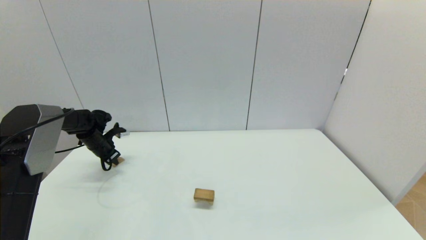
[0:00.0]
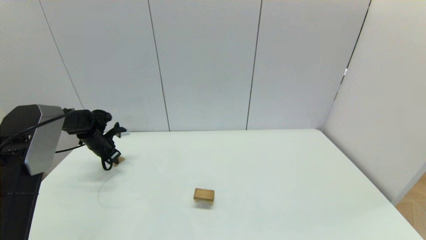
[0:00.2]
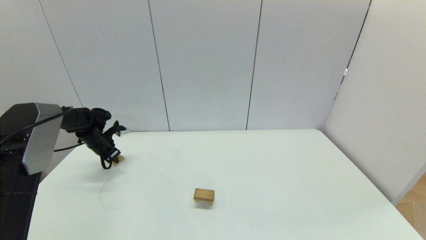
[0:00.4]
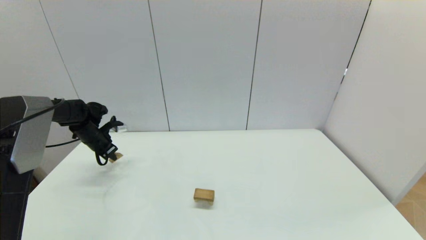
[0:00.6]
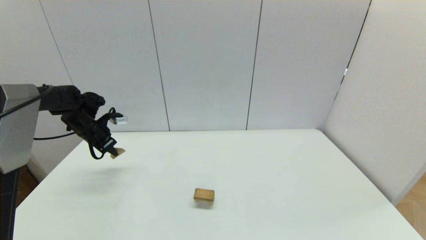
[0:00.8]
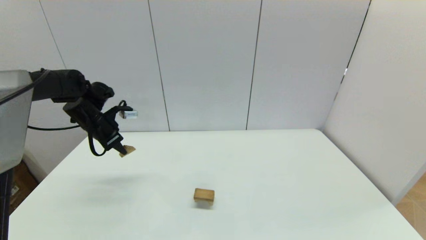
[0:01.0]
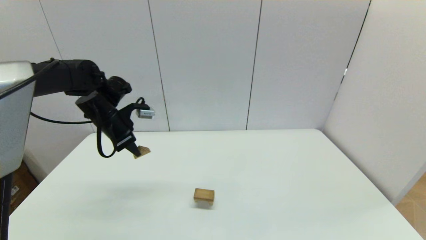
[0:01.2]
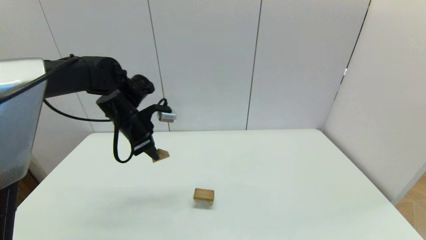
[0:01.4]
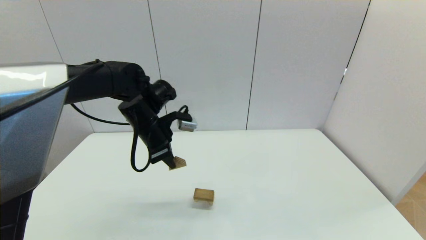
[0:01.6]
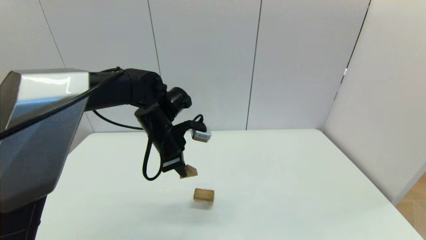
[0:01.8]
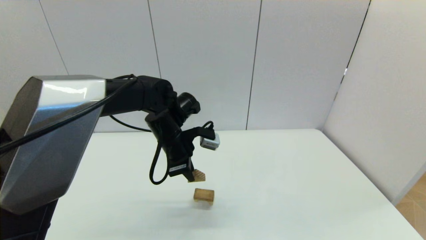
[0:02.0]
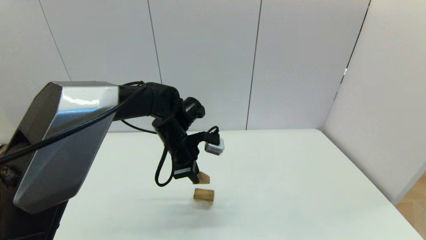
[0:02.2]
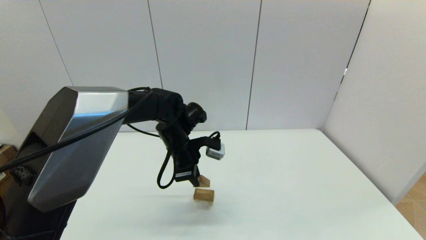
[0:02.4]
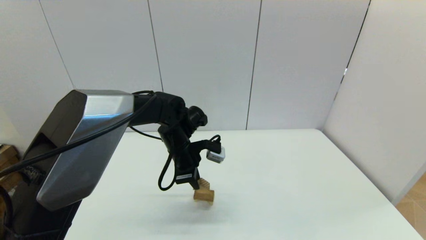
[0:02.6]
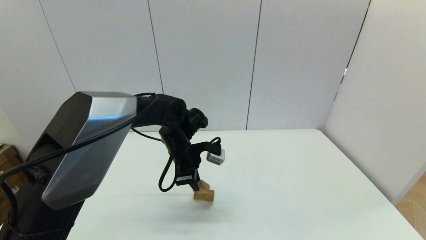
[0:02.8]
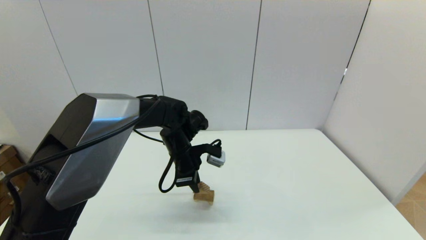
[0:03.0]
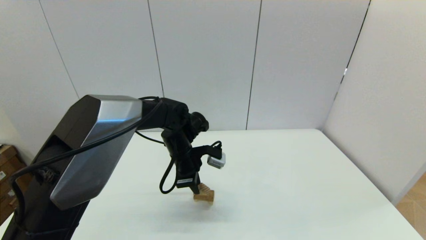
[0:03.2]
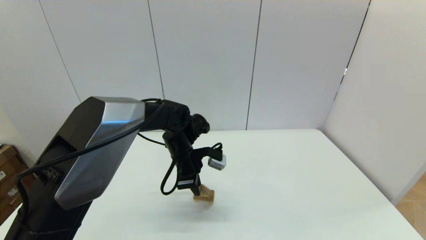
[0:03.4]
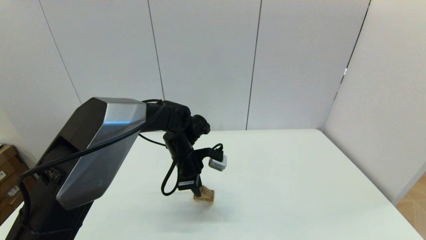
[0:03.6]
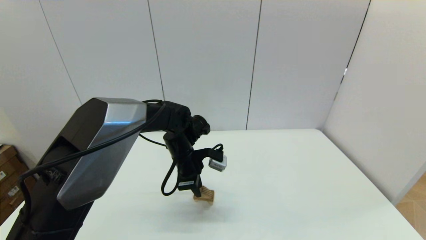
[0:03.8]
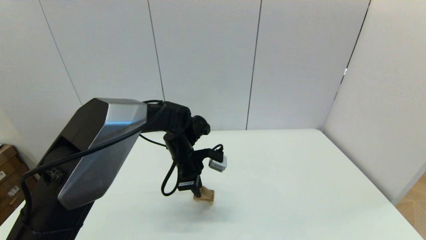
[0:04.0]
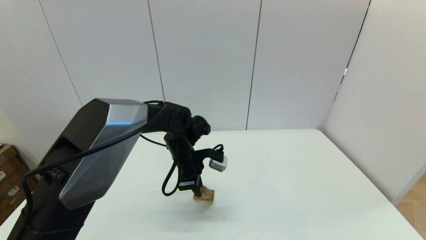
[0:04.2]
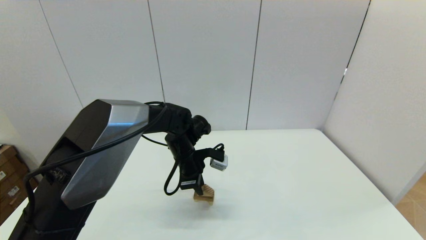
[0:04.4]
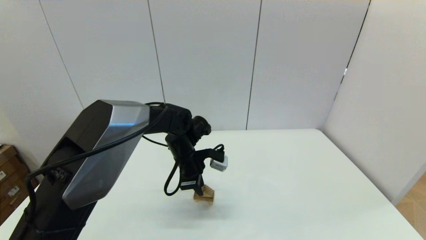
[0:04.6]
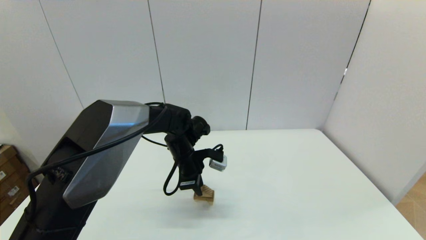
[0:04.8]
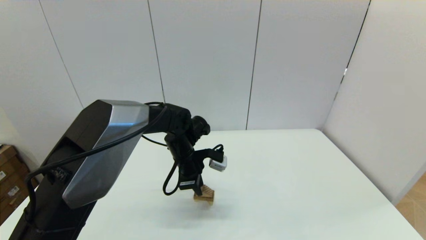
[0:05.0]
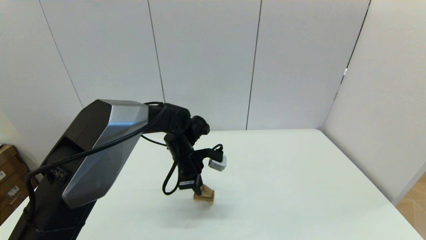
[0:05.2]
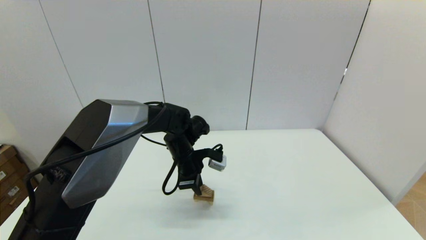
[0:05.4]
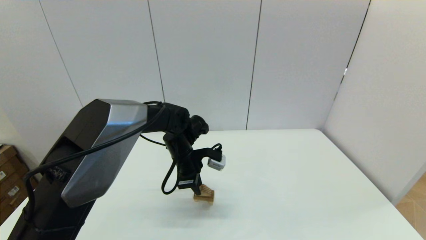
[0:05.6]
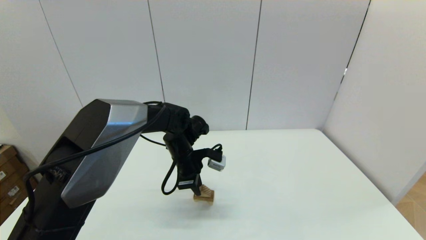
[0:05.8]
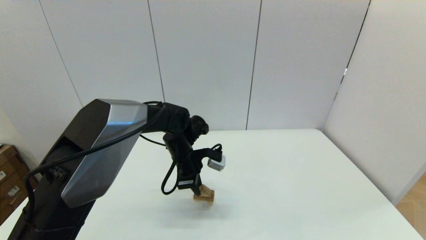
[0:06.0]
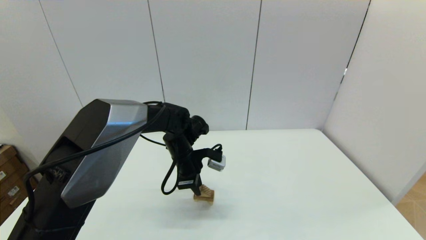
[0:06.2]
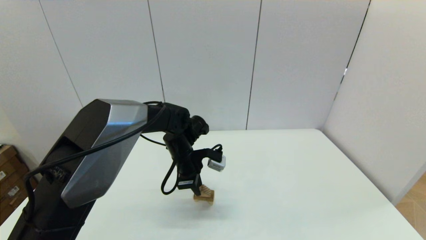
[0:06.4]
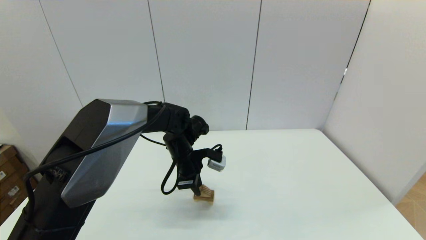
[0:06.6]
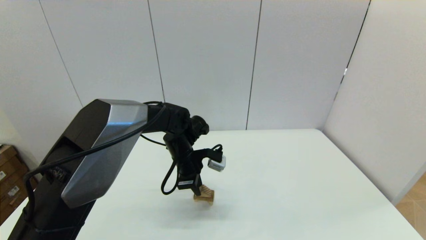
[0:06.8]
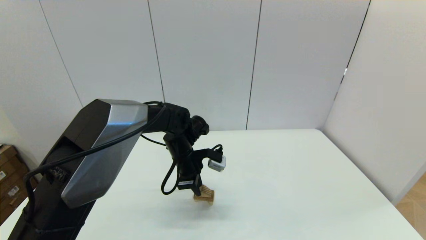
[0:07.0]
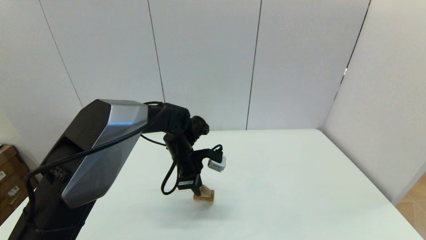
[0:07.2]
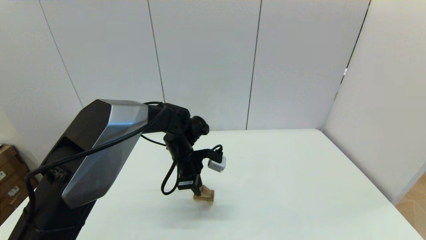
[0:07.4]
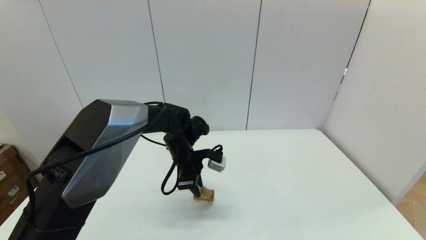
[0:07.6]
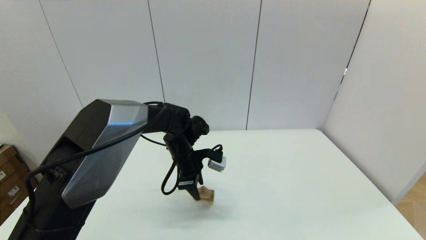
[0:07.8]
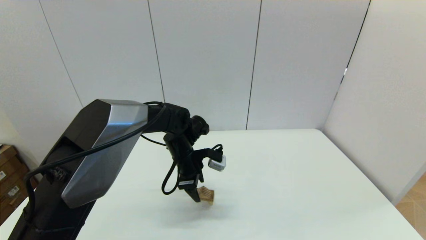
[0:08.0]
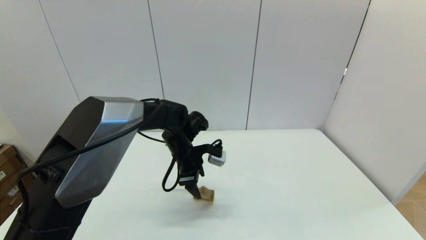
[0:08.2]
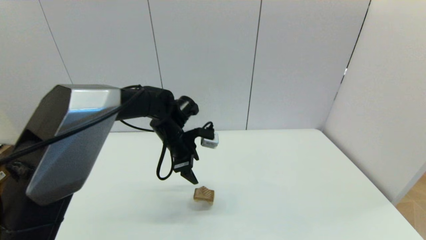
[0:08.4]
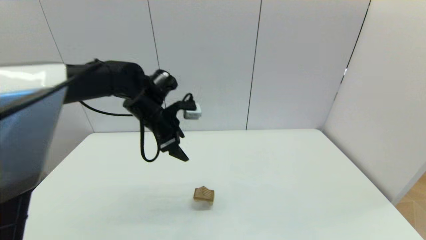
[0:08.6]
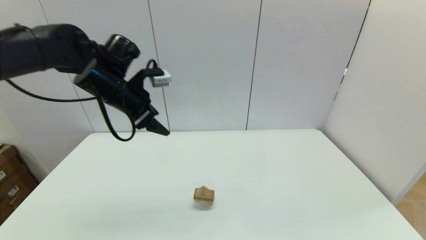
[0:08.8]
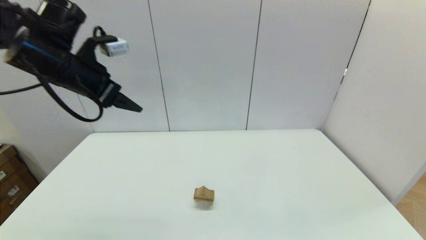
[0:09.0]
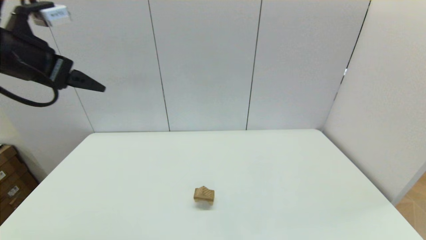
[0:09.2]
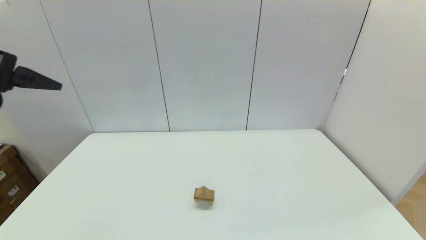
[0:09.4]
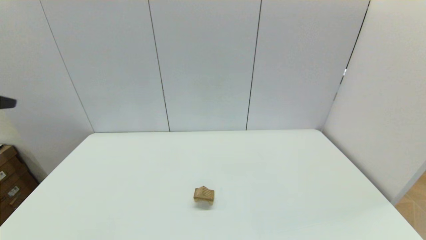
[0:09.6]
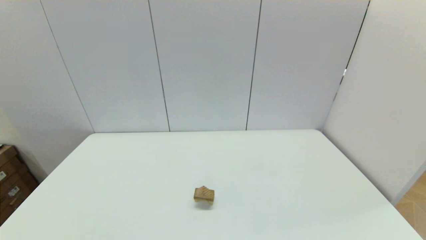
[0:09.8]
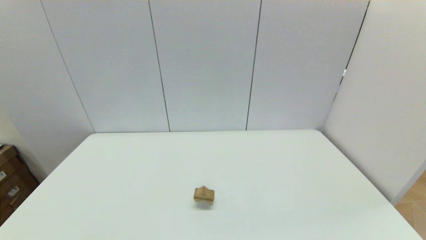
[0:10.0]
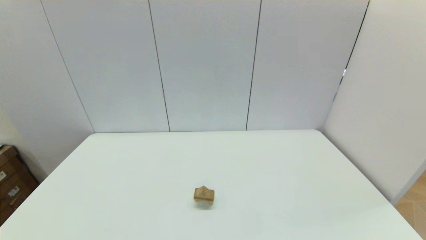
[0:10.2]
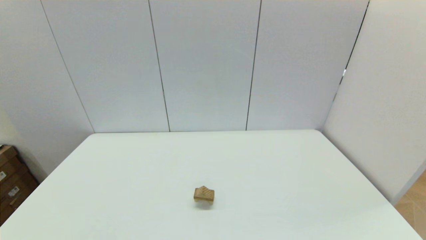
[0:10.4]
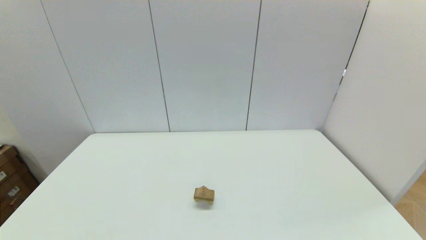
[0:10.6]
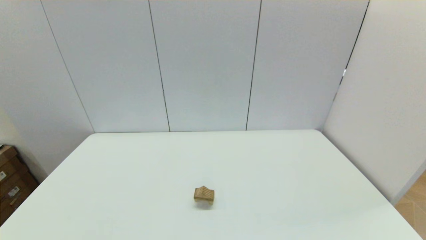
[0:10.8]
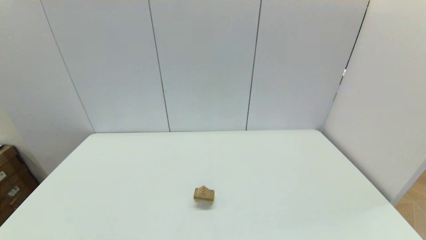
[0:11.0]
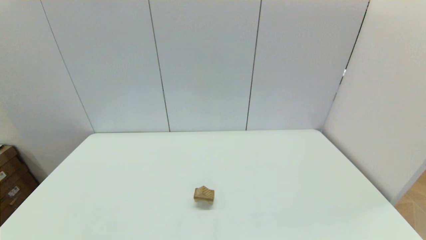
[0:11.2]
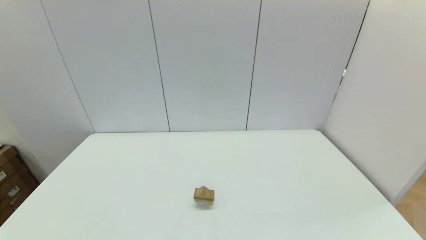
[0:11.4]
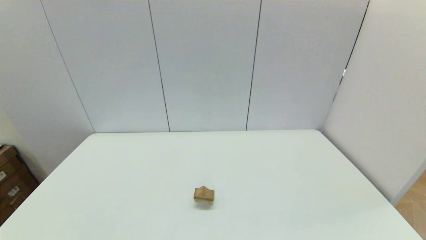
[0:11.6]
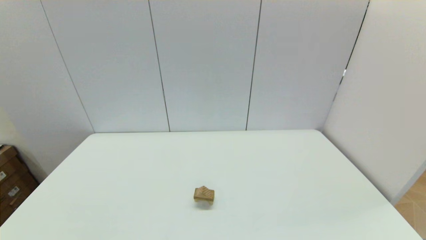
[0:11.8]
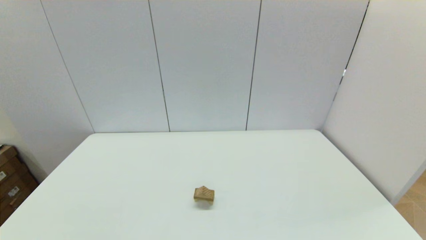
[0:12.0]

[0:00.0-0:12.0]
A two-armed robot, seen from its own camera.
Task of the whole recording: place the arched building blocks in the center of the table, set up the rectangular building blocks, and then set up the triangular building blocks.
0:00.0 to 0:01.6: The left gripper moves to the right, upward and backward, approximately 30 cm.
0:01.6 to 0:03.0: The left gripper travels downward and to the right by about 10 cm.
0:03.0 to 0:04.4: The grippers make only small movements.
0:04.4 to 0:07.6: The two grippers keep their place.
0:07.6 to 0:09.0: The left gripper shifts about 30 cm upward and to the left, and opens its fingers.
0:09.0 to 0:10.4: The left gripper moves backward, roughly 40 cm.

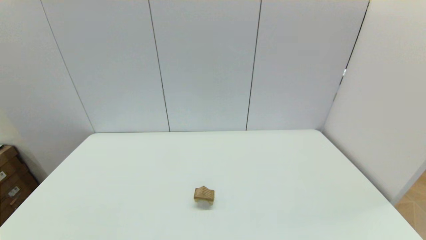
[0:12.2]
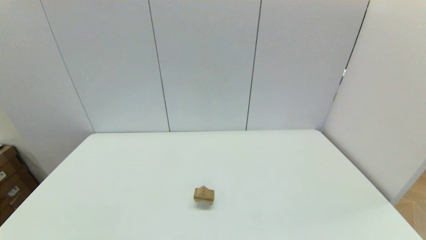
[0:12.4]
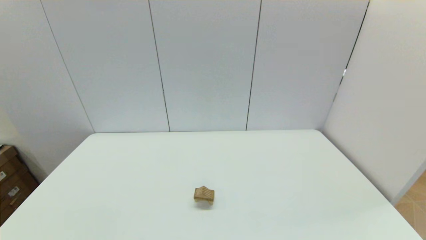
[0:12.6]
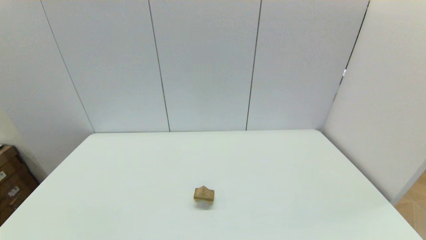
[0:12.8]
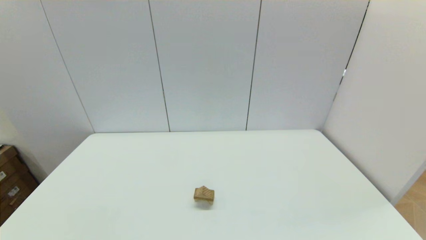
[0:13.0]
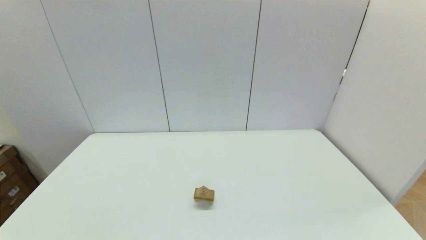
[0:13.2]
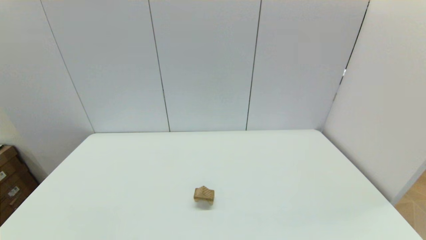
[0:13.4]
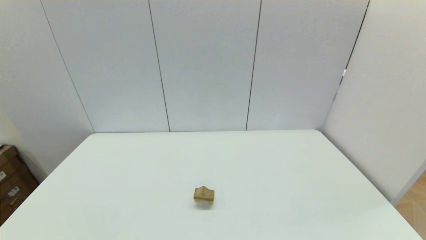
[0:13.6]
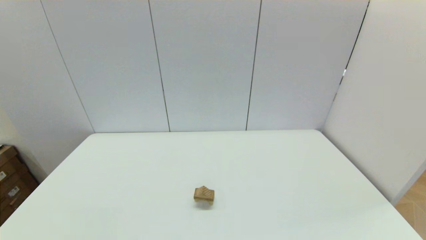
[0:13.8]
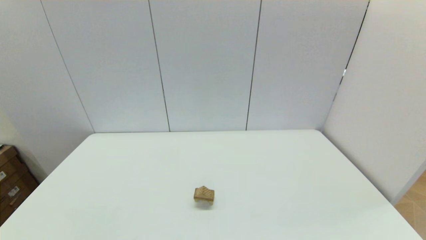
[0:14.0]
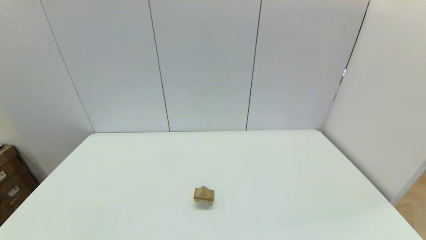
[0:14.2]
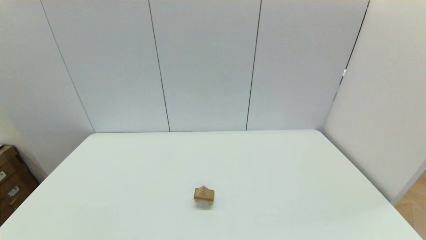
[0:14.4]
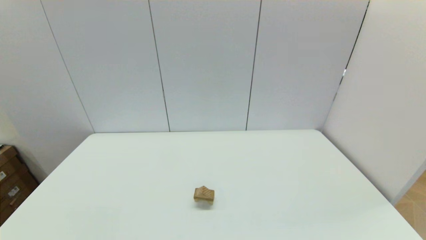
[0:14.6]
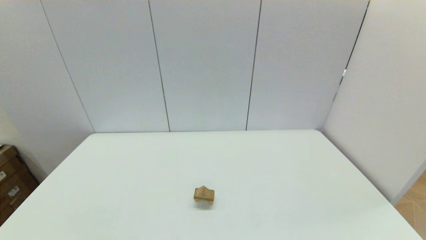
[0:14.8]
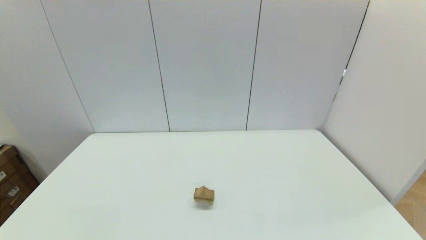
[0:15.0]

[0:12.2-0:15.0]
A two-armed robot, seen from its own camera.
Task of the whole recording: place the arched building blocks in the center of the table, set up the rectangular building blocks, and then set up the triangular building blocks.
0:13.6 to 0:15.0: Both grippers stay put.
